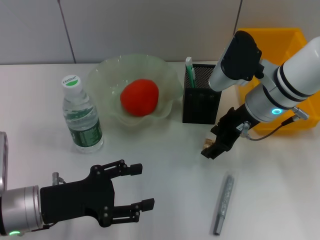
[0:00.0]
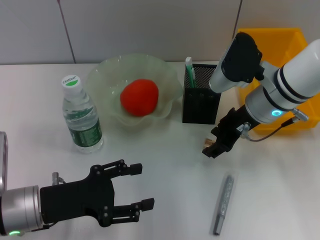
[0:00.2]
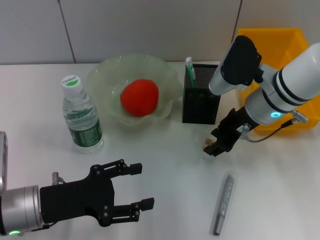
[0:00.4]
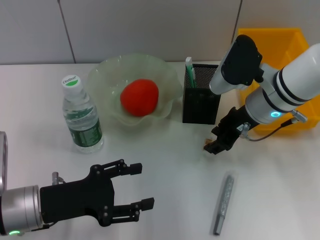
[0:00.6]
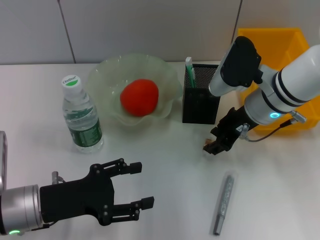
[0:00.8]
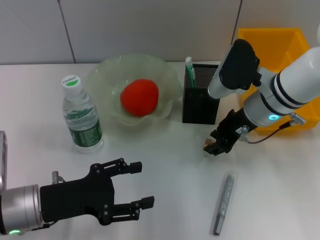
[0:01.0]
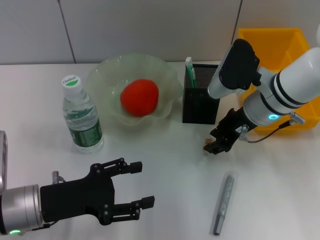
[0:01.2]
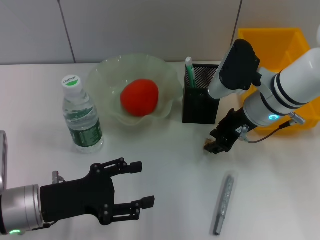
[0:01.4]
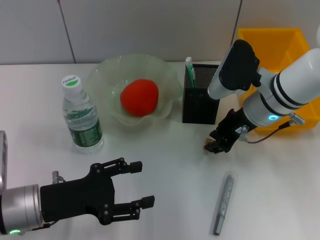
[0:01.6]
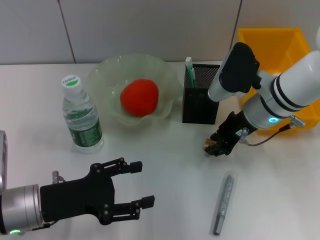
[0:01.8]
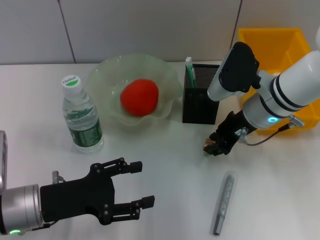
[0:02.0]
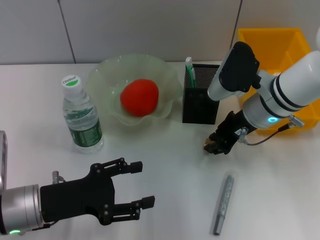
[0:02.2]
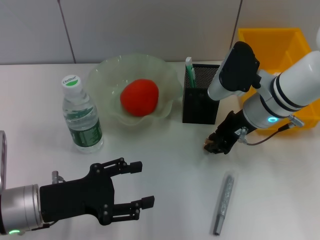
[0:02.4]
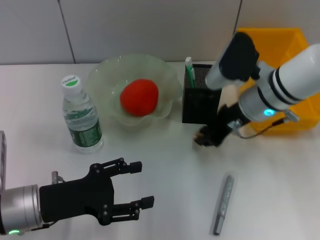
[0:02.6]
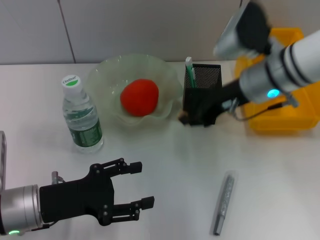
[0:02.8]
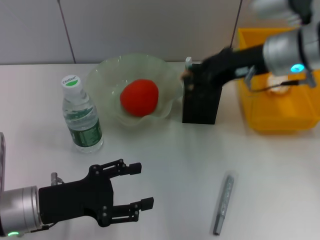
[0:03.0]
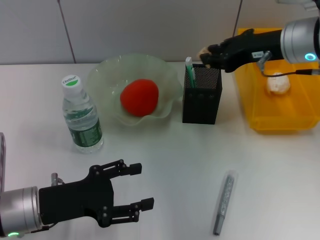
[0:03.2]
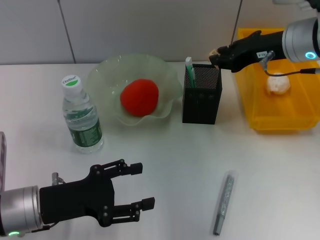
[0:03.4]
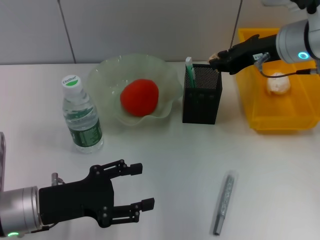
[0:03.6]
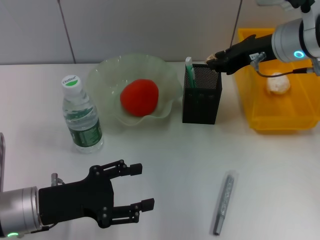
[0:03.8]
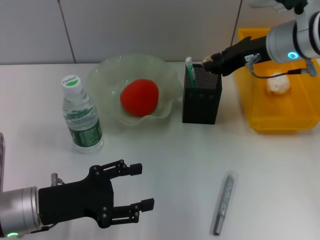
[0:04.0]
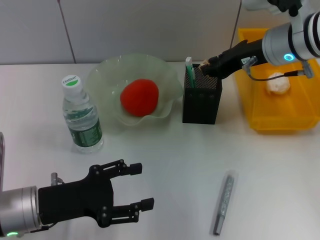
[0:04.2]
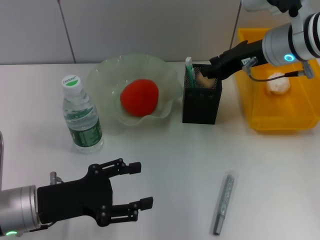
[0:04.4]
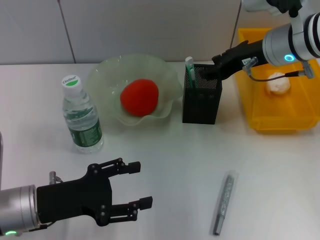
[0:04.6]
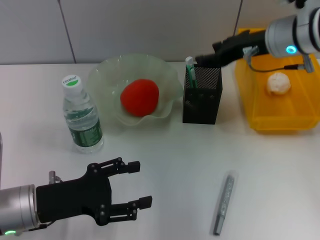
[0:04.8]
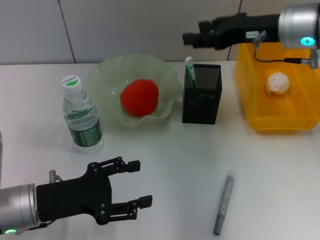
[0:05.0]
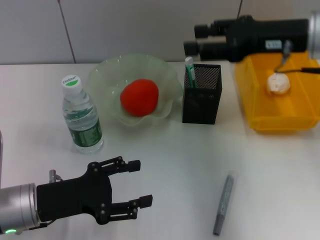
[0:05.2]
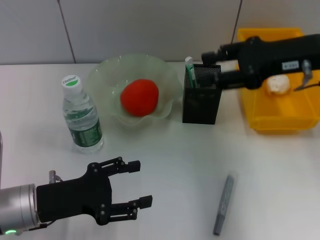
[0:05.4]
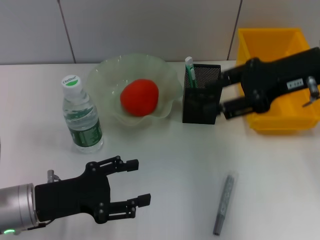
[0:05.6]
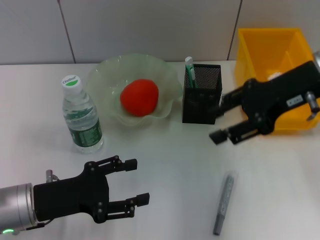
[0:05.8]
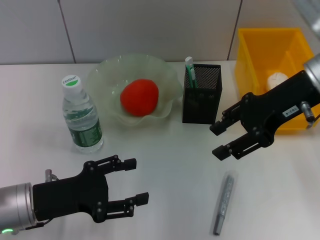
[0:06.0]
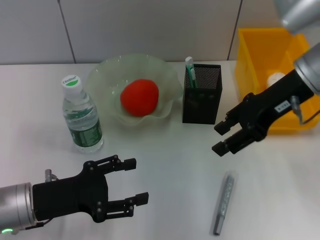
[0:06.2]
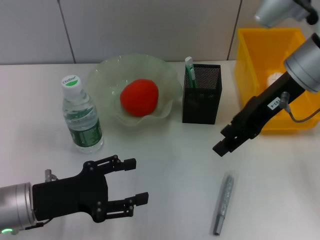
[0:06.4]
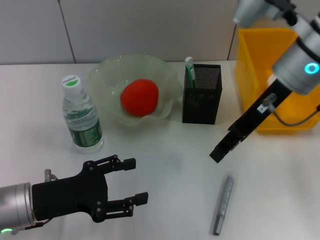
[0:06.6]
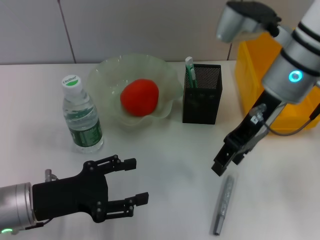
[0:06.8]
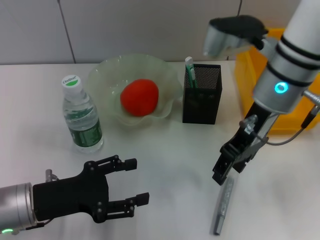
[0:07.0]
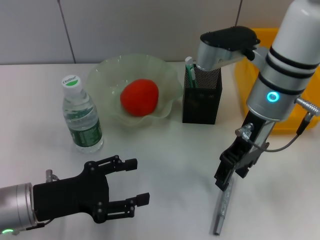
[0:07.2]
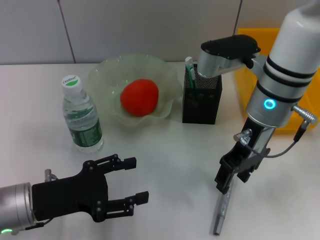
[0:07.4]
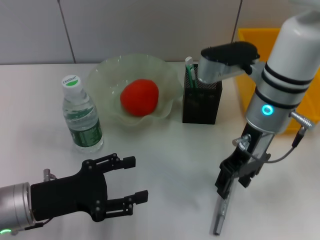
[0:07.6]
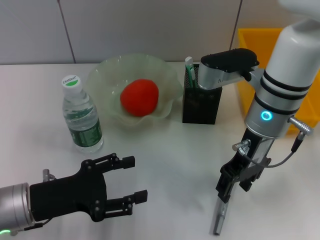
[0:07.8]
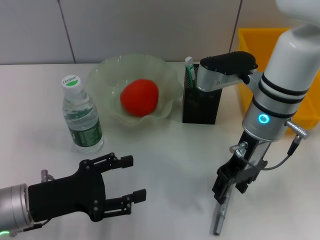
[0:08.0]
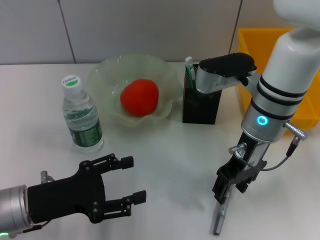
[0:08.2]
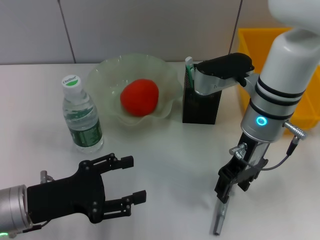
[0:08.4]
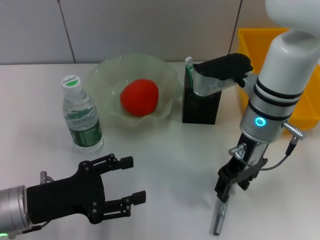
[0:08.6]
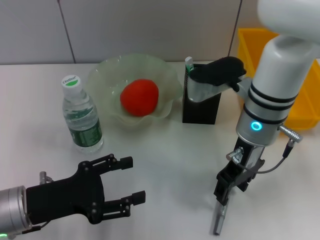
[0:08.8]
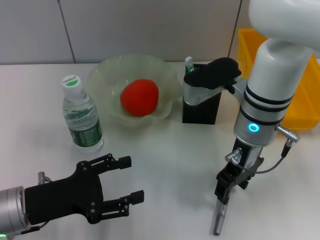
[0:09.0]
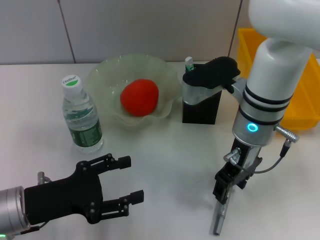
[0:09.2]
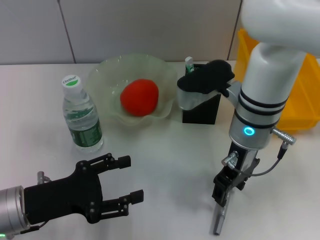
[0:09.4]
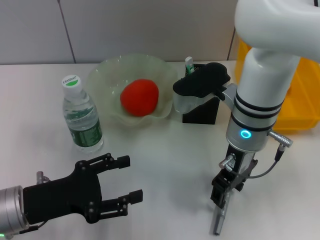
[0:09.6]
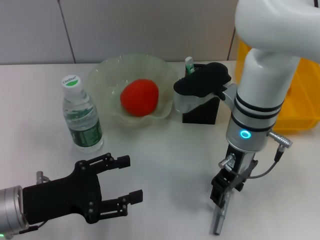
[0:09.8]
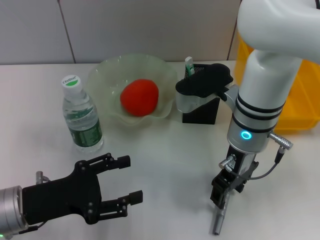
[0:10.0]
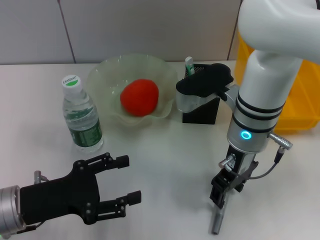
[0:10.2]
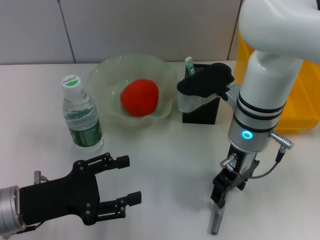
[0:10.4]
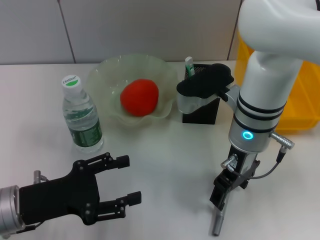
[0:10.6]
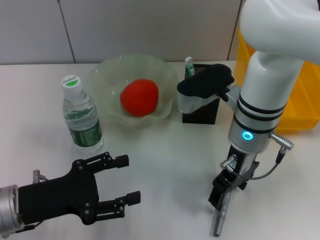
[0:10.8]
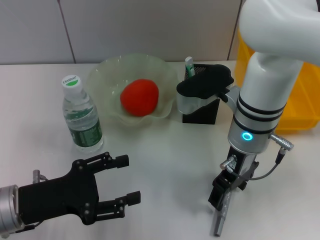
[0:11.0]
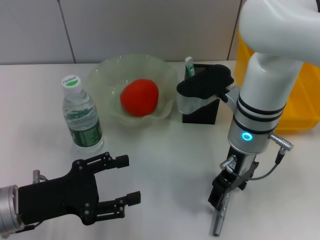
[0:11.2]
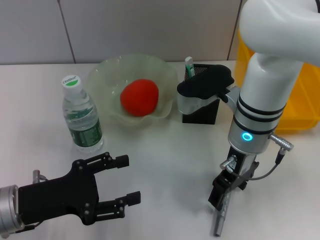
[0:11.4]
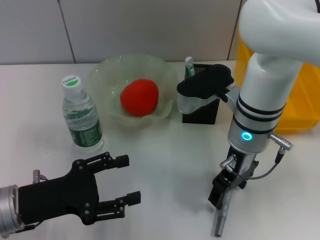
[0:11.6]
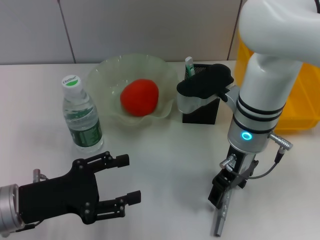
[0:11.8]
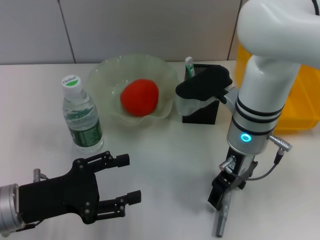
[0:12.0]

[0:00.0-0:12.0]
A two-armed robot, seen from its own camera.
Step, 0.0 to 2.4 s: Grab the eraser with the right hand.
Step, 2.6 to 4.4 s: Put the eraser into the pen holder with the right hand.
0.0 to 1.6 s: The right gripper closes its fingers.
1.6 to 3.0 s: The right gripper moves upward, about 10 cm.
3.0 to 4.4 s: The grippers stay close to where they were, moving slightly.
4.4 to 6.0 s: The right gripper heads backward, covering some 5 cm, and opens.
6.0 to 7.6 s: The right gripper is displaced to the left and downward by roughly 10 cm.
7.6 to 10.4 s: There are only small adjustments of the grippers.
10.4 to 12.0 s: Both grippers stay put.

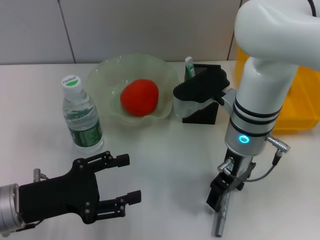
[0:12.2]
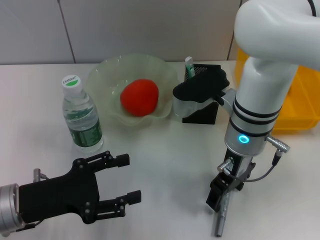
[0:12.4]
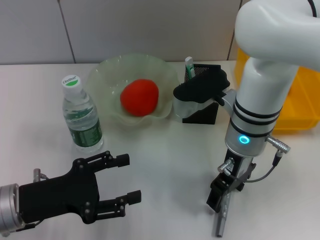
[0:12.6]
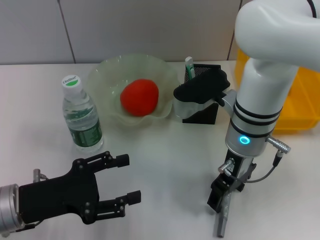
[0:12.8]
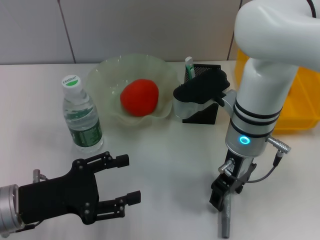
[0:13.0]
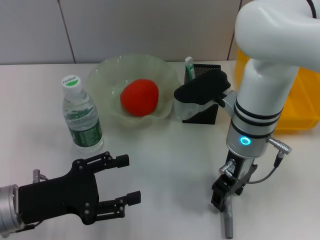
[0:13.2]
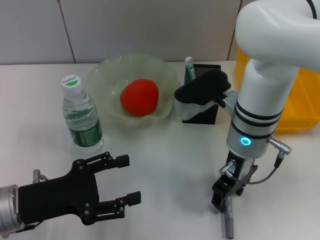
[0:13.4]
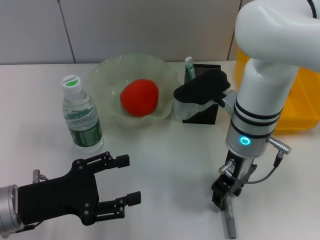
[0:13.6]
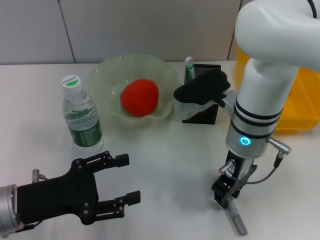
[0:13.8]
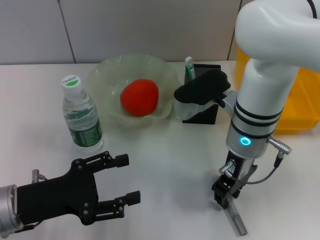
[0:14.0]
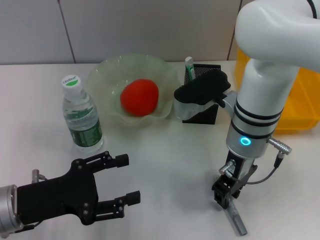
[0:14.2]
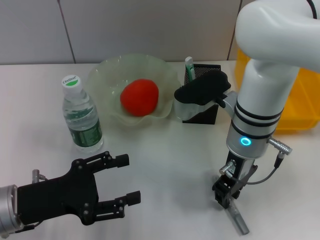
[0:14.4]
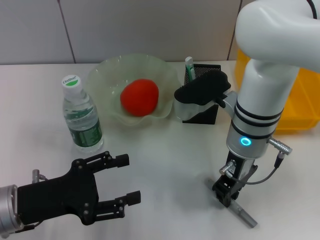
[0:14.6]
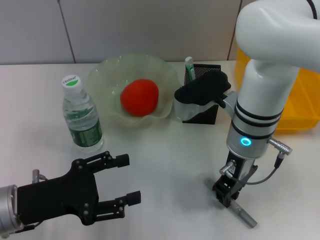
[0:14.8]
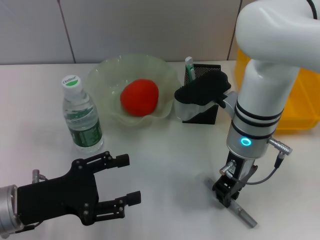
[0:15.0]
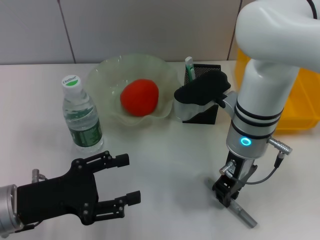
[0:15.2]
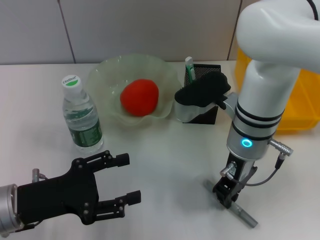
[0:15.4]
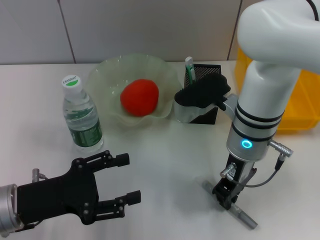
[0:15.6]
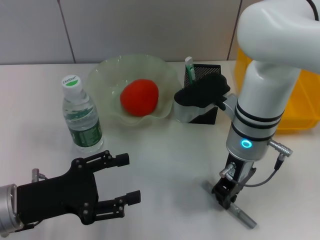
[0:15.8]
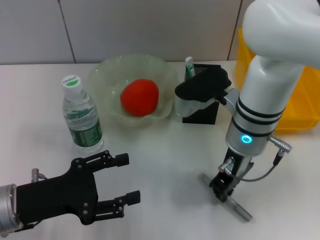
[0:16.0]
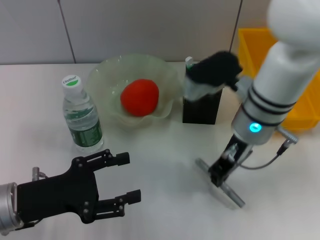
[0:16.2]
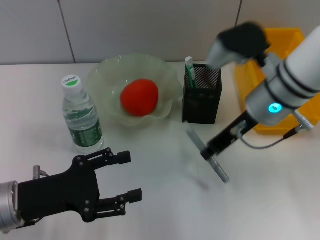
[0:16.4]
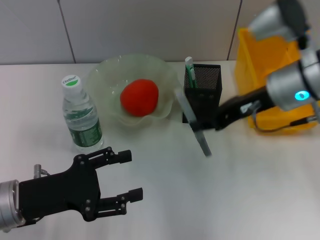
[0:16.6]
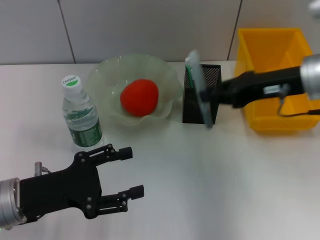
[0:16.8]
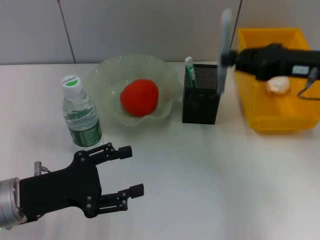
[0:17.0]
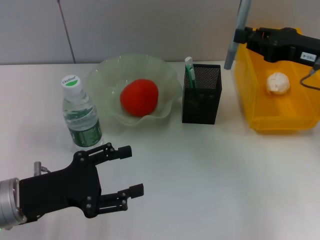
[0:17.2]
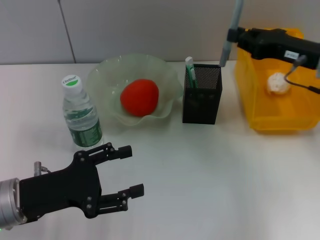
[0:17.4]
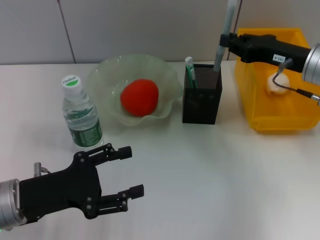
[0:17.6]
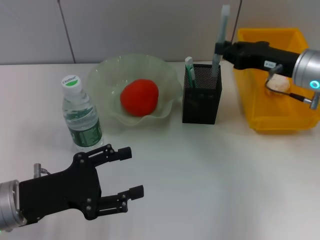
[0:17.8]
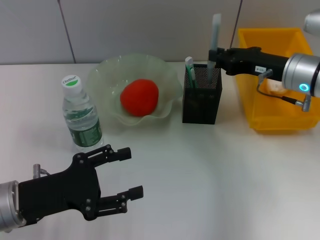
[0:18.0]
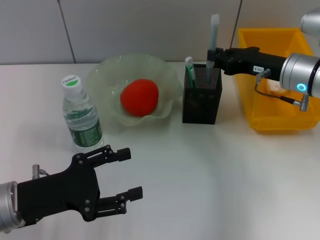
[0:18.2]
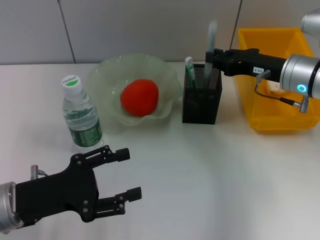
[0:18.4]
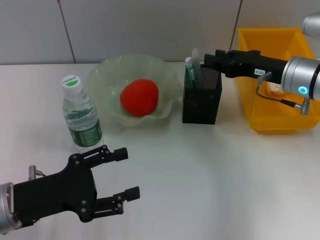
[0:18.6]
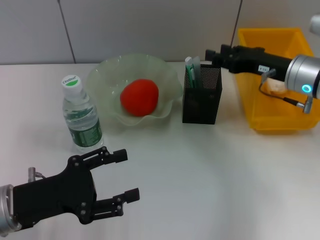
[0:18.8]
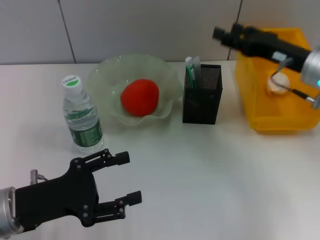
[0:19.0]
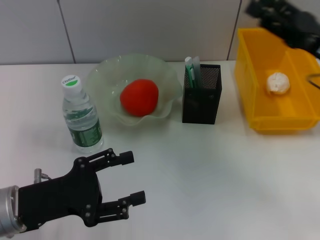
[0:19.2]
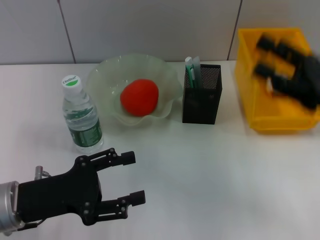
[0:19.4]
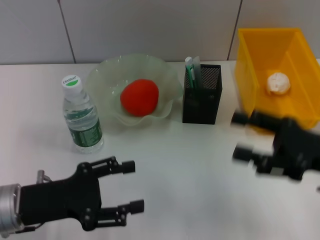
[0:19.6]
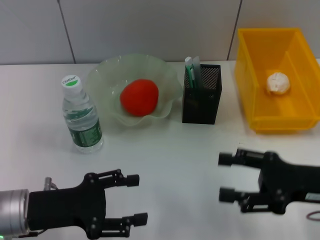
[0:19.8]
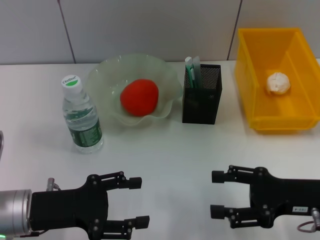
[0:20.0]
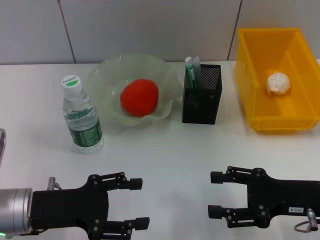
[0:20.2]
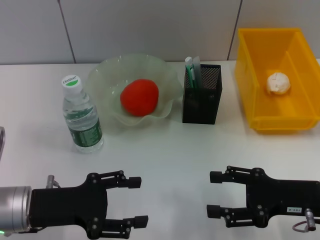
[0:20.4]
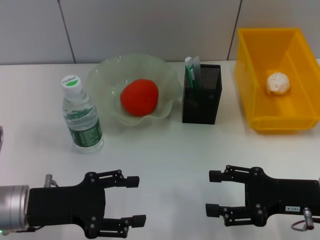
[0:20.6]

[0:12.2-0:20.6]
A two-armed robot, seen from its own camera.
Step, 12.2 to 15.6 s: Grab the gray glue with the right hand.
Step, 15.8 to 18.6 s: Place the gray glue into the pen holder with the right hand.
12.2 to 13.6 s: Neither gripper changes place.
13.6 to 15.0 s: The right gripper closes up.
15.0 to 16.4 s: The right gripper changes place by approximately 5 cm.
16.4 to 17.8 s: The right gripper travels to the right by some 10 cm.
17.8 to 19.2 s: The right gripper goes about 5 cm backward, and opens its fingers.
19.2 to 20.6 s: The right gripper heads downward and backward, covering about 10 cm.

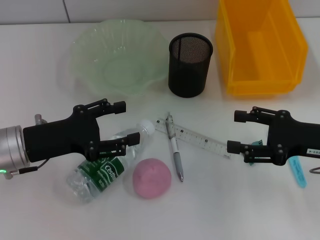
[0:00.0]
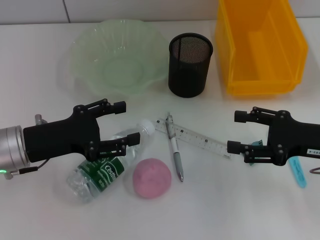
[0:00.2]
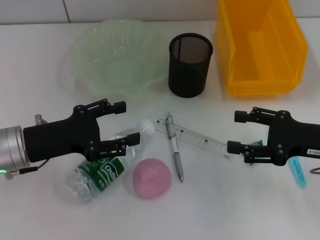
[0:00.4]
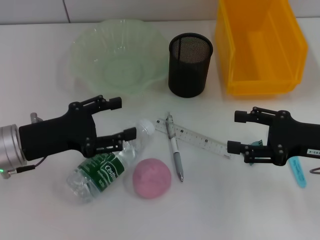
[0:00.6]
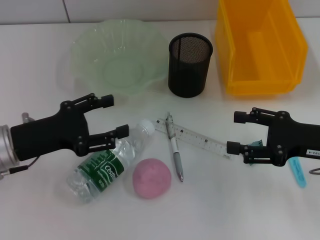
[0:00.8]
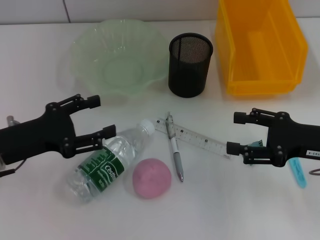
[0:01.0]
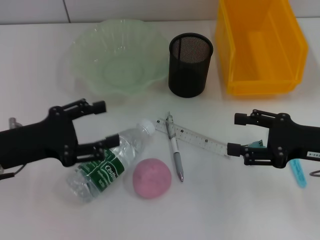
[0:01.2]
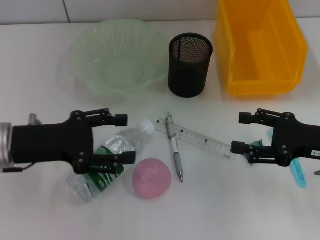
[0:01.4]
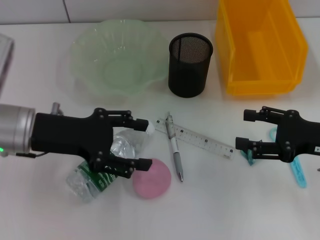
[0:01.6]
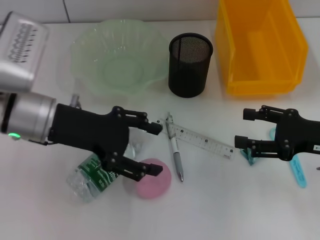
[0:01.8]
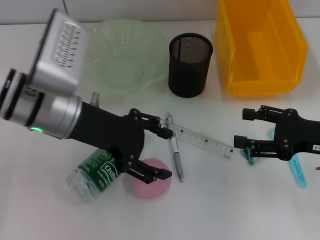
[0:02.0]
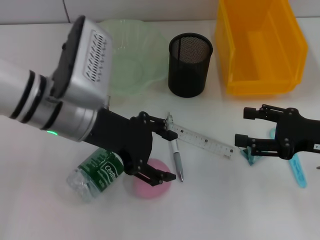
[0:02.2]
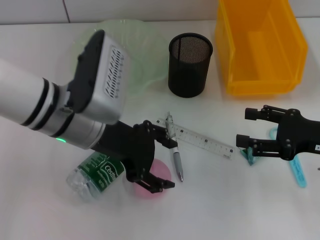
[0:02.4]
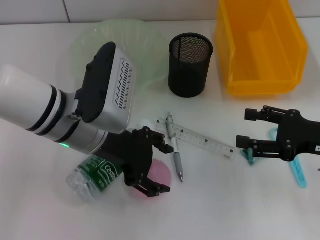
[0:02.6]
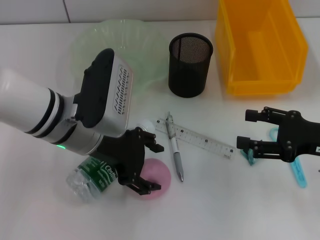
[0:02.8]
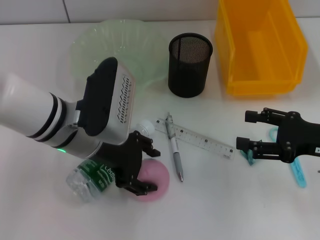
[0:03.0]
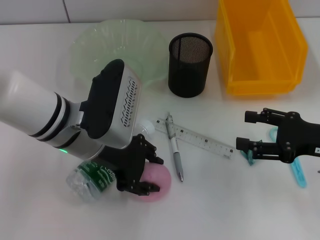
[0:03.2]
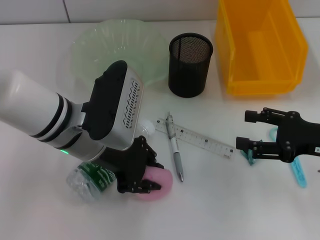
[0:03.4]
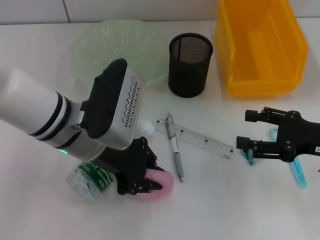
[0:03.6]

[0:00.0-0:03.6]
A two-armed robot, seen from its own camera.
Step, 0.0 to 3.2 s: Grab the peach with the left hand.
0.0 to 1.8 s: The left gripper shifts about 5 cm upward.
1.8 to 3.6 s: The left gripper moves to the right, about 5 cm, and closes up.
